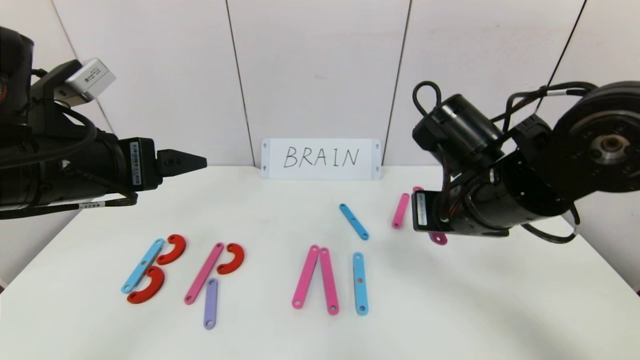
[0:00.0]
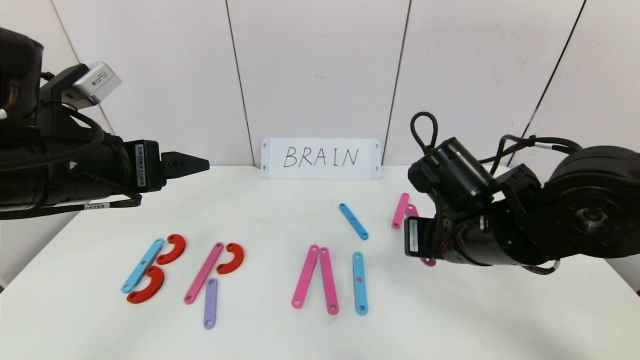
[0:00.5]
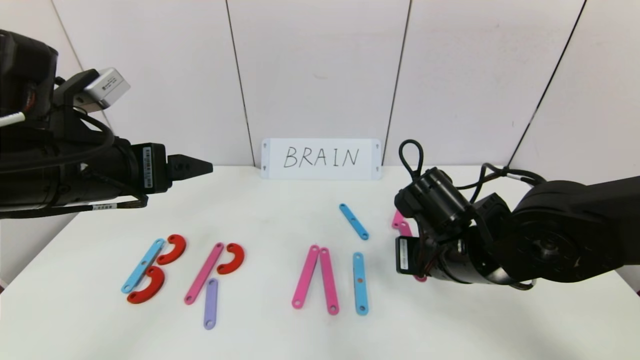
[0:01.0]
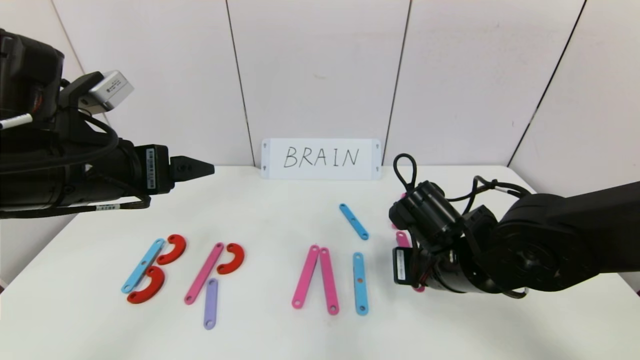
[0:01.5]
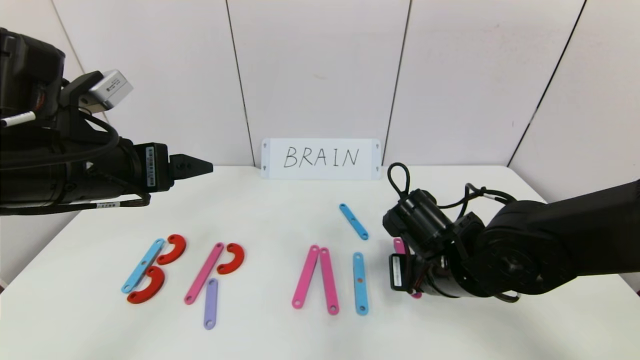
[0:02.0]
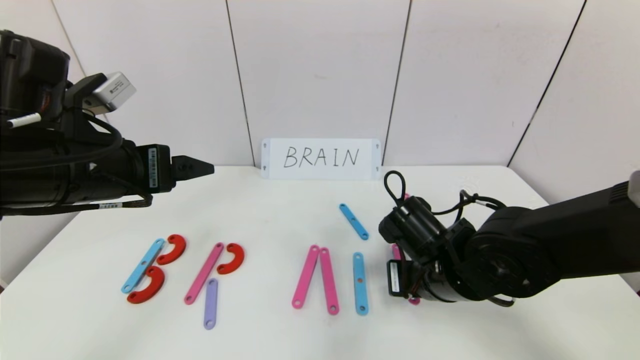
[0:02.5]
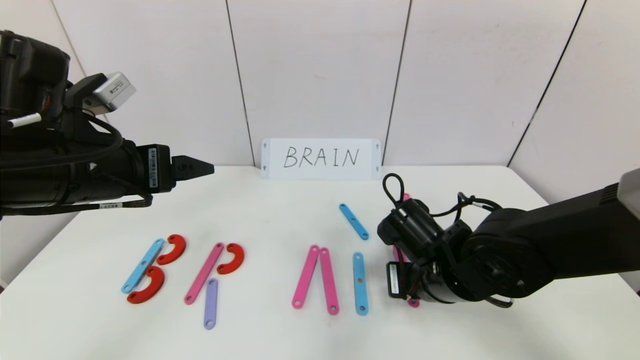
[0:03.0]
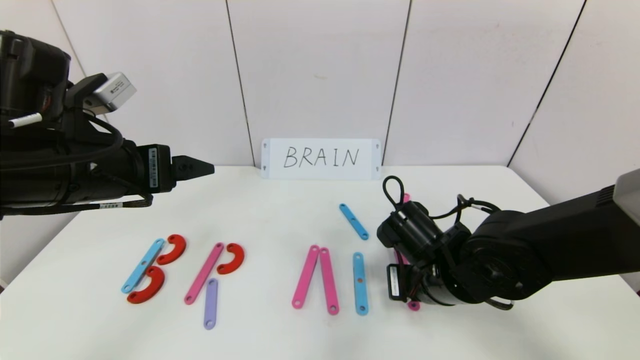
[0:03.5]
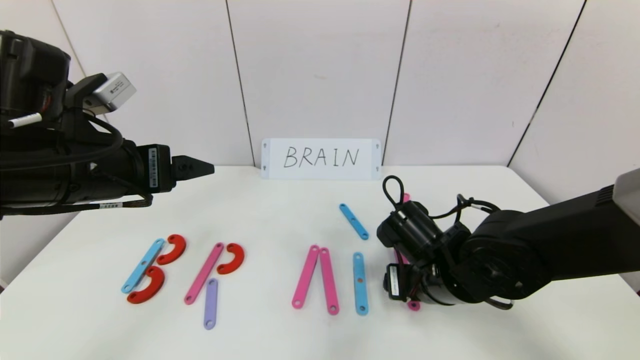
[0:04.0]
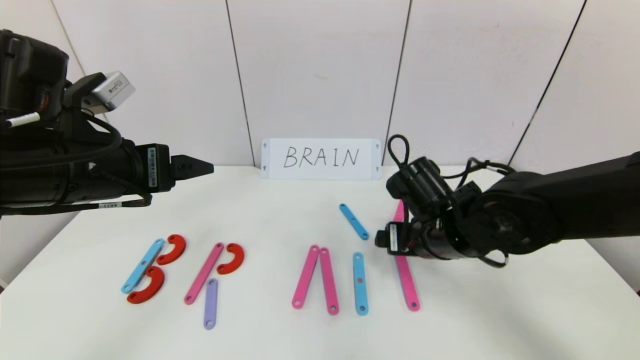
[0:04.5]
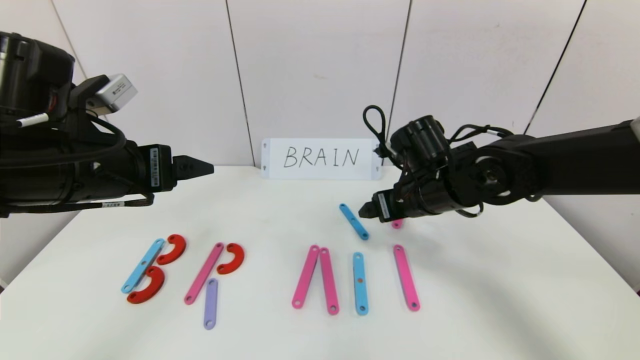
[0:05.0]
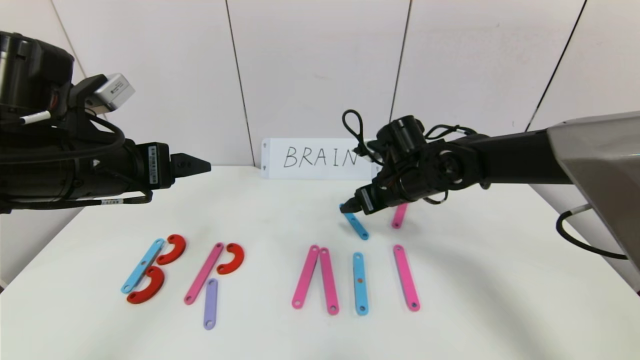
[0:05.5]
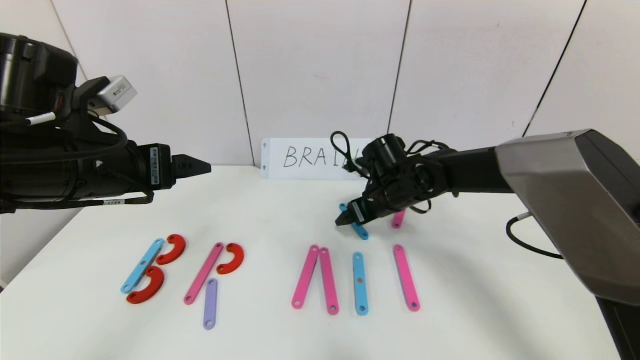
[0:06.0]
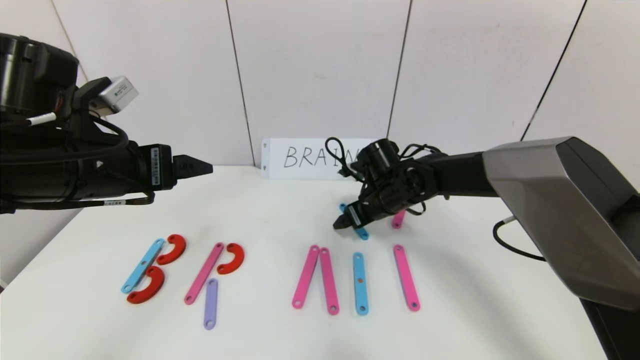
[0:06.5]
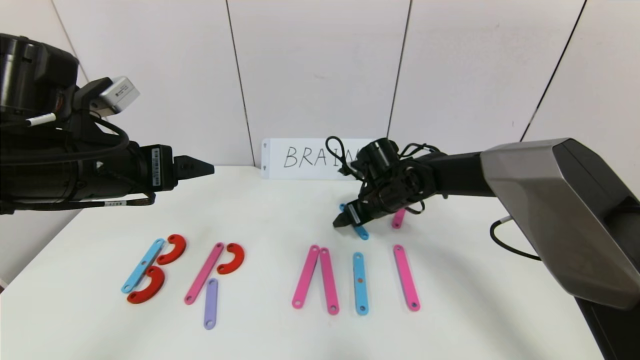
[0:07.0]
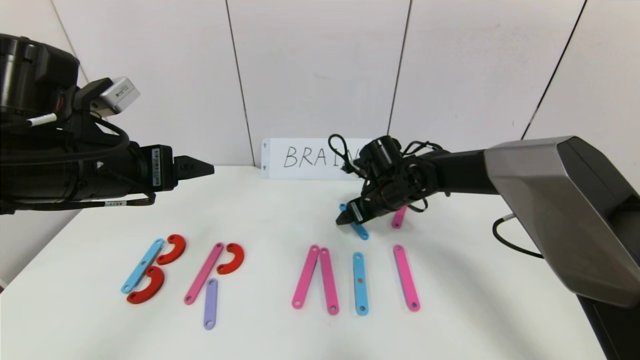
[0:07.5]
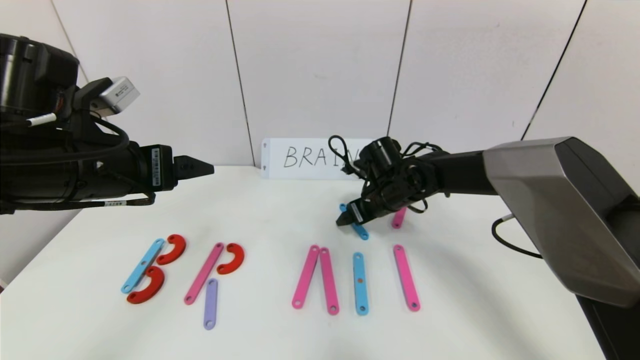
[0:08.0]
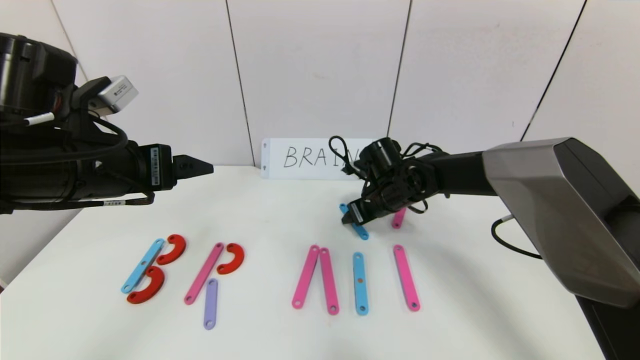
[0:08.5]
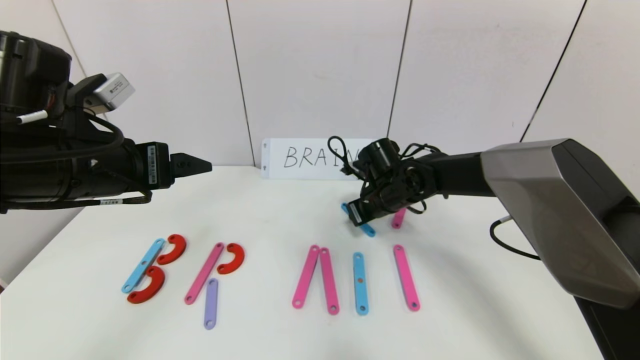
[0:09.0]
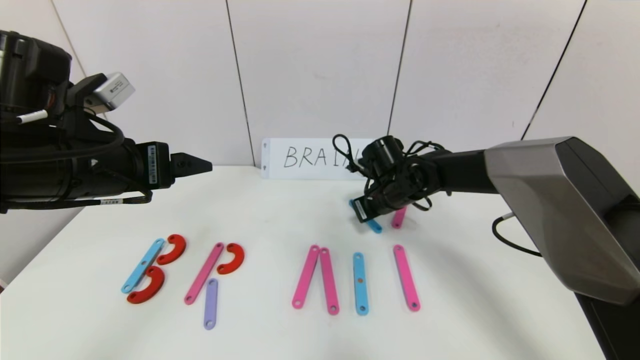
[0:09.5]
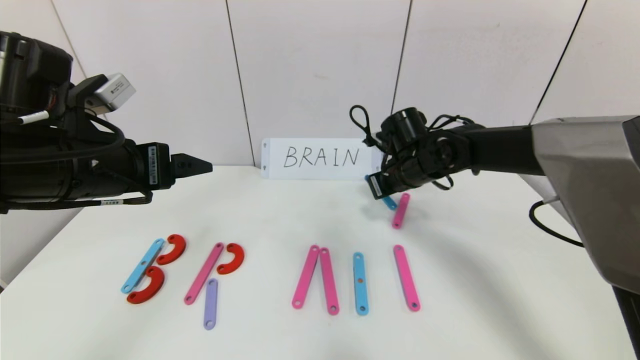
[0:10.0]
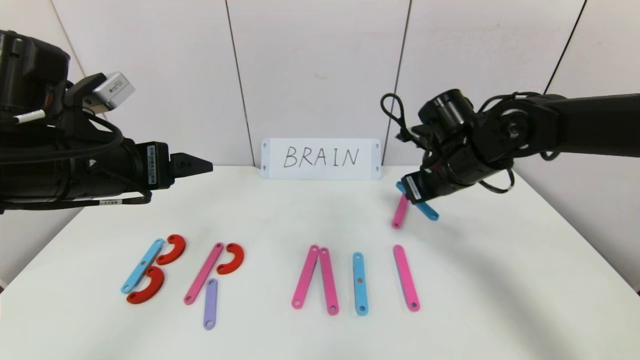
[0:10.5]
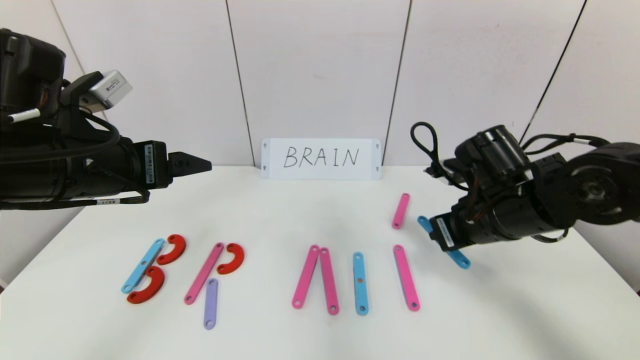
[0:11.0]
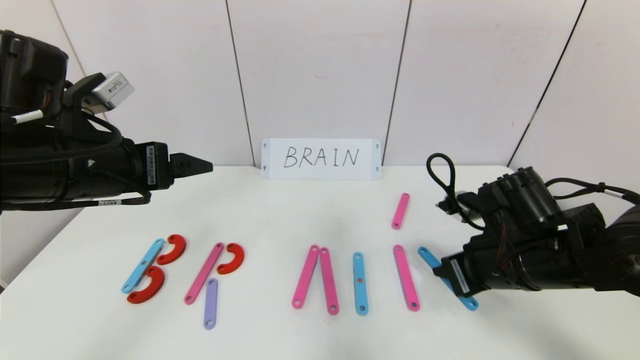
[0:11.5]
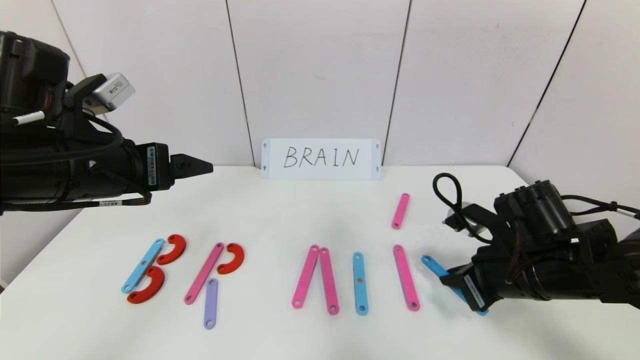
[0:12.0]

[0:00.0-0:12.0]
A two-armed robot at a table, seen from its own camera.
Task of the whole recording: rearrange the word baai as brain.
0:00.0 to 0:02.0: The right gripper is displaced downward by about 10 cm.
0:02.0 to 0:04.0: The right gripper opens up.
0:04.0 to 0:06.0: The right gripper moves forward, some 15 cm.
0:06.0 to 0:08.0: The grippers make only small movements.
0:08.0 to 0:10.0: The right gripper travels upward by approximately 5 cm, and closes up.
0:10.0 to 0:12.0: The right gripper travels backward and to the right by roughly 20 cm.

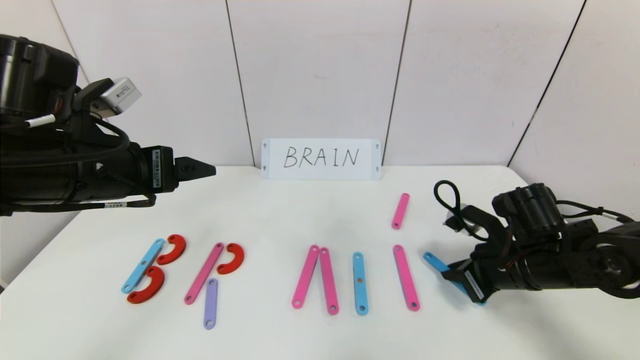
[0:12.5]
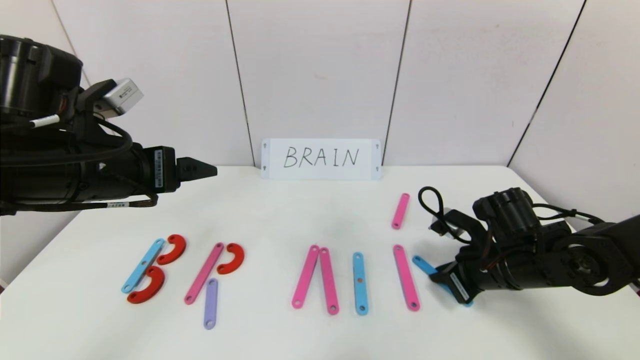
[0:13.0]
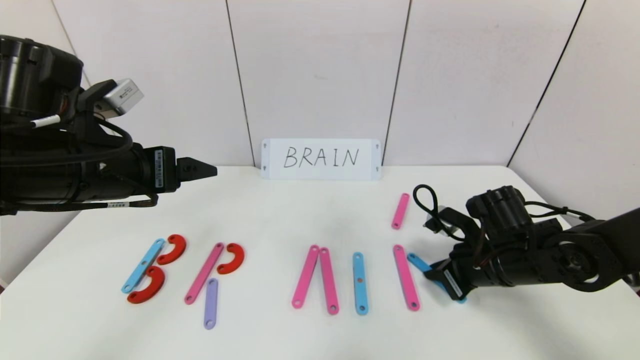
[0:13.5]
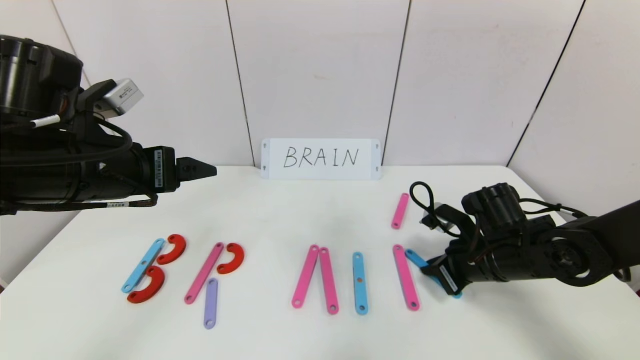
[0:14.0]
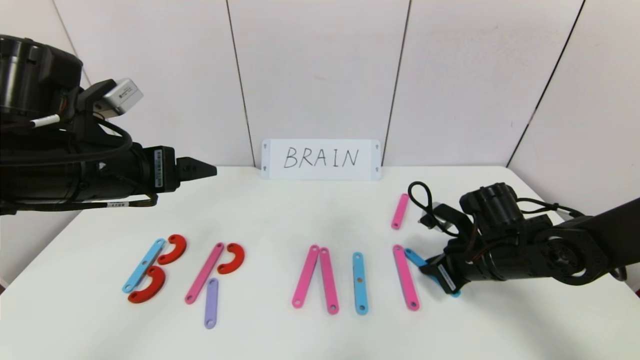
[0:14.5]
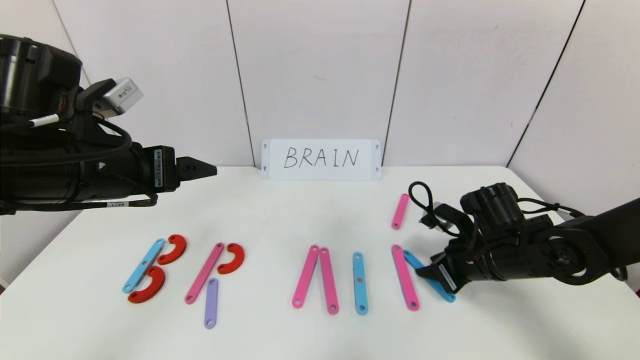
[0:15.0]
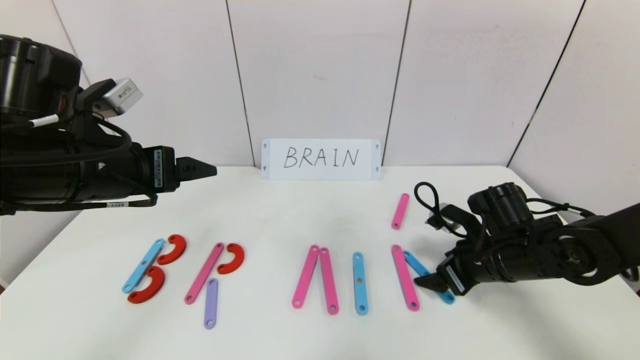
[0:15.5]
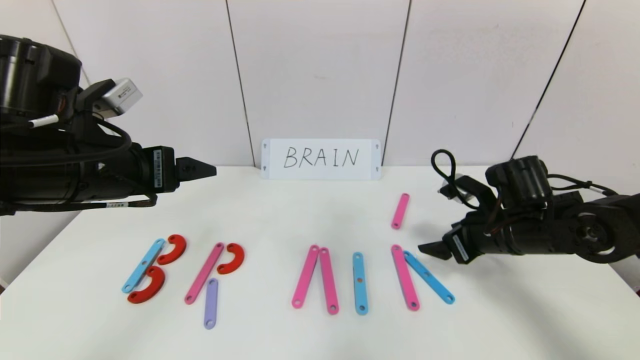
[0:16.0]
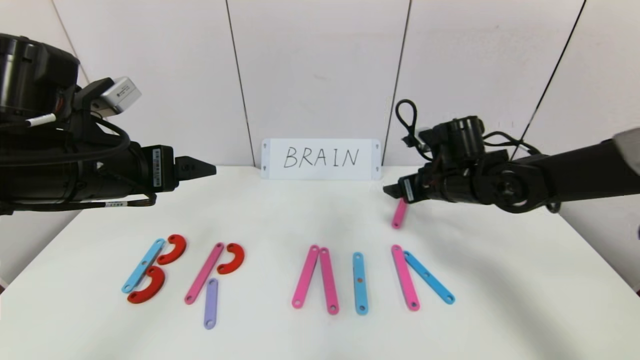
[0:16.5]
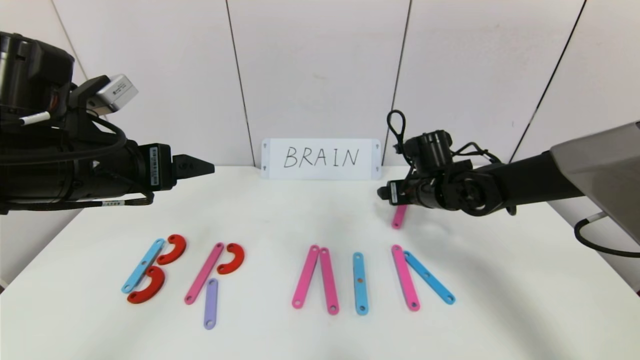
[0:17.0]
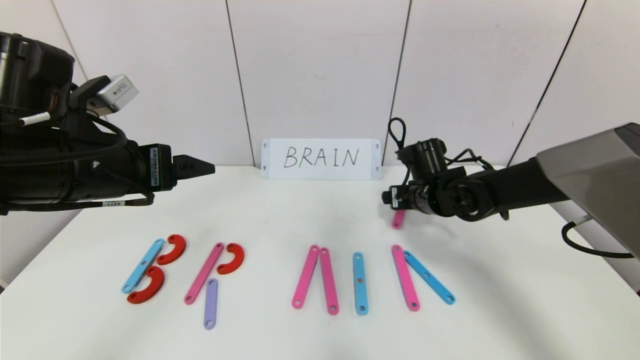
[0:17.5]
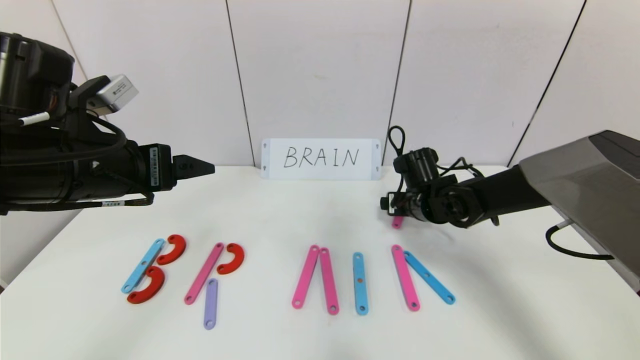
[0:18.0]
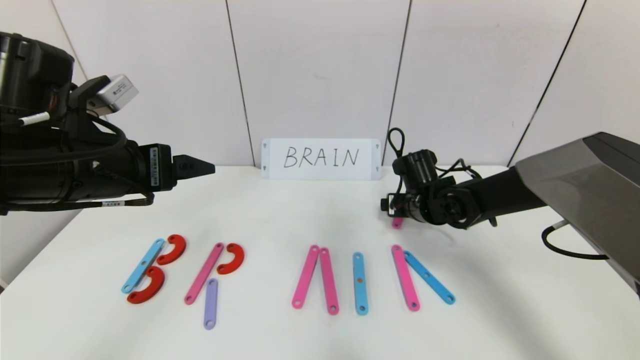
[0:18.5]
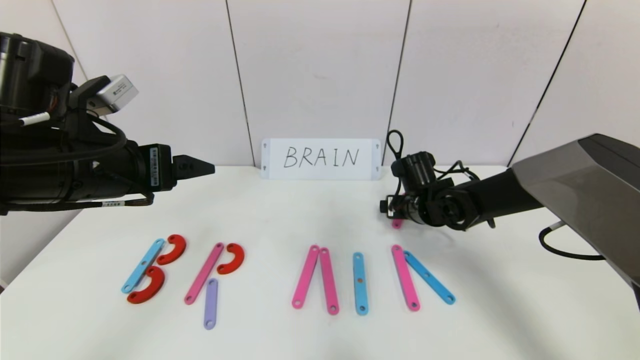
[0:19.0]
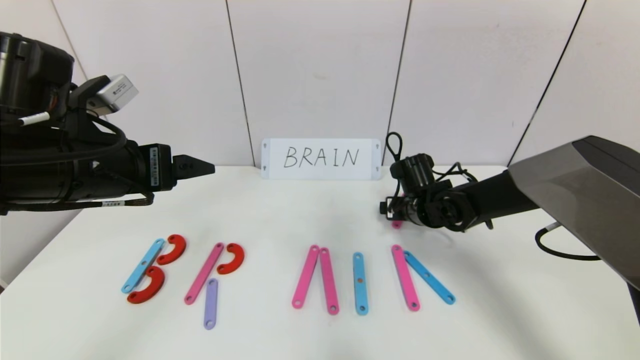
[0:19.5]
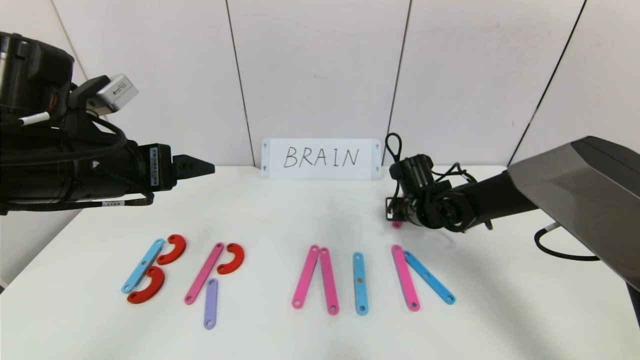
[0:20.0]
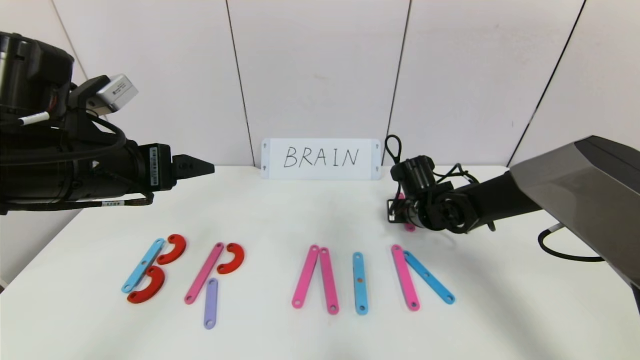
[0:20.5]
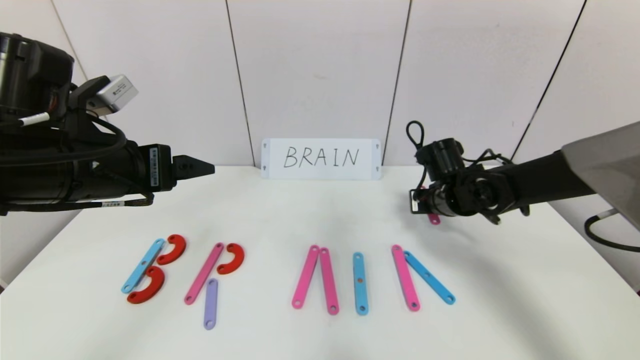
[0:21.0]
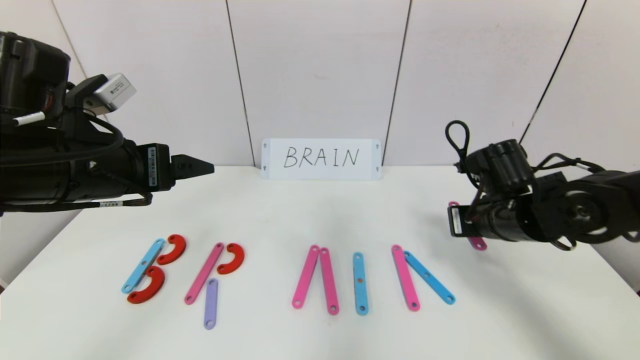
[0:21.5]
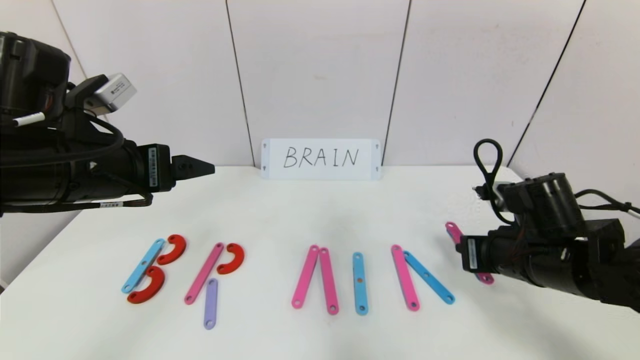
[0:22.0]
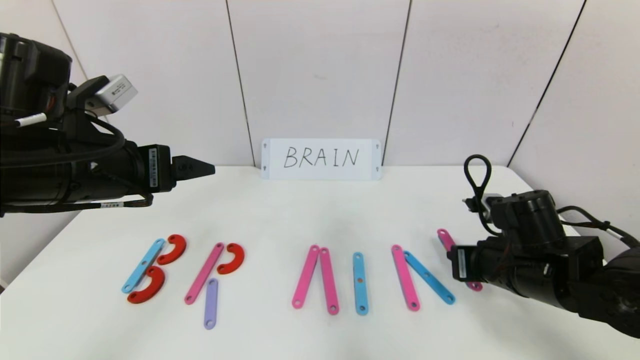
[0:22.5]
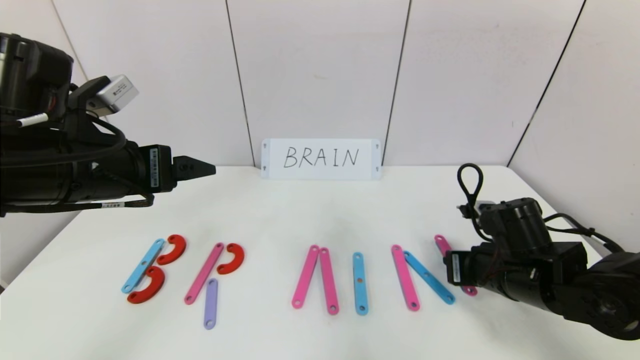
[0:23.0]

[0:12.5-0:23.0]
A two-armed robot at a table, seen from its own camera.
Task of the whole recording: rearrange the word baai as brain.
0:12.5 to 0:14.5: The grippers stay close to where they were, moving slightly.
0:14.5 to 0:16.5: The right gripper is displaced forward and upward by some 10 cm, and opens its fingers.
0:16.5 to 0:19.0: The right gripper is displaced downward by approximately 5 cm.
0:19.0 to 0:21.0: The right gripper ends up approximately 5 cm from where it was, and closes up.
0:21.0 to 0:23.0: The right gripper shifts about 15 cm backward.
